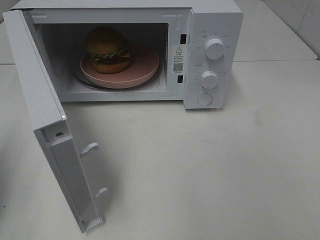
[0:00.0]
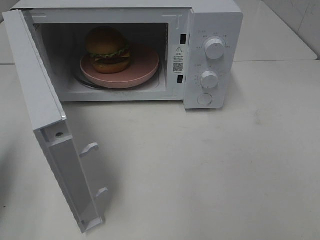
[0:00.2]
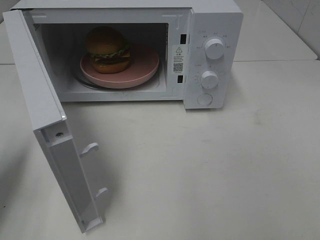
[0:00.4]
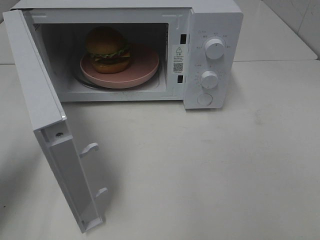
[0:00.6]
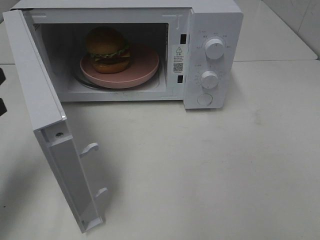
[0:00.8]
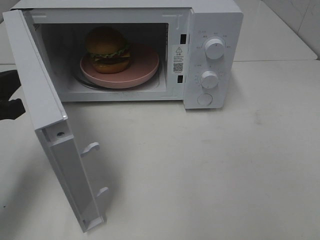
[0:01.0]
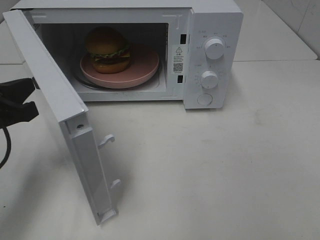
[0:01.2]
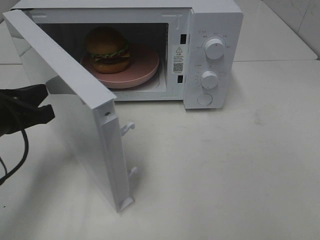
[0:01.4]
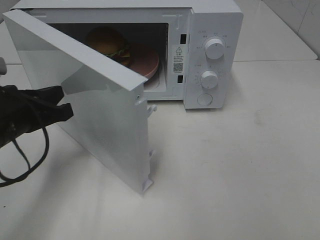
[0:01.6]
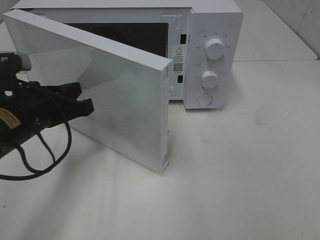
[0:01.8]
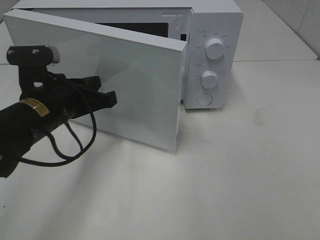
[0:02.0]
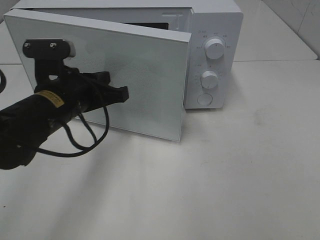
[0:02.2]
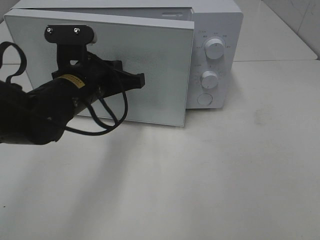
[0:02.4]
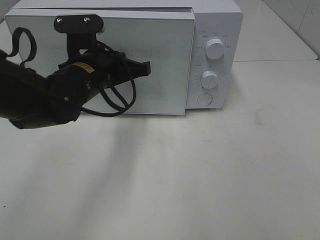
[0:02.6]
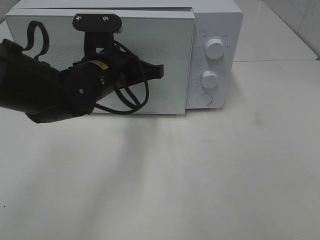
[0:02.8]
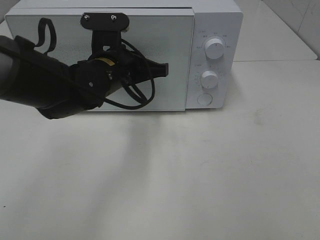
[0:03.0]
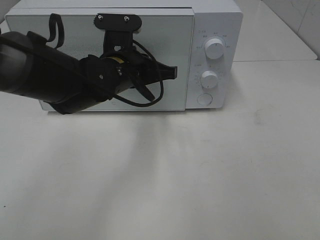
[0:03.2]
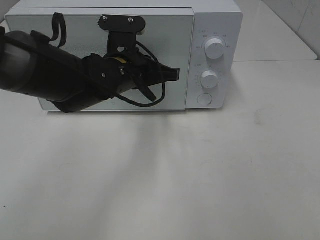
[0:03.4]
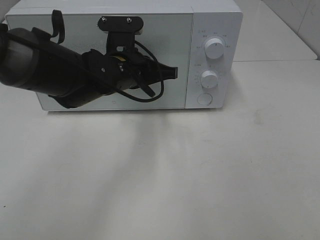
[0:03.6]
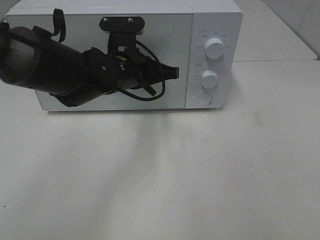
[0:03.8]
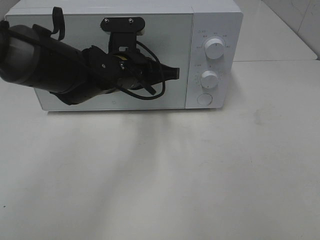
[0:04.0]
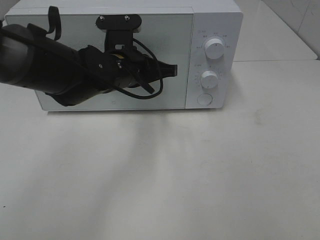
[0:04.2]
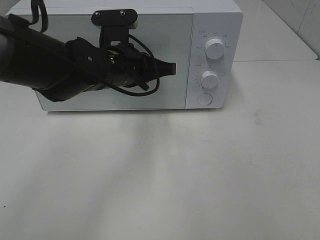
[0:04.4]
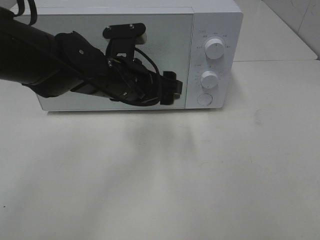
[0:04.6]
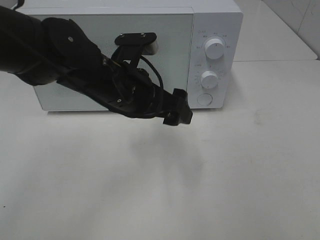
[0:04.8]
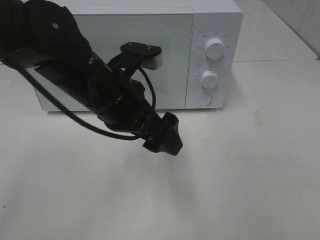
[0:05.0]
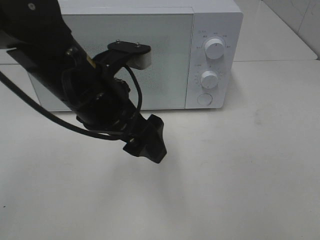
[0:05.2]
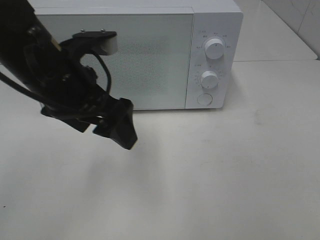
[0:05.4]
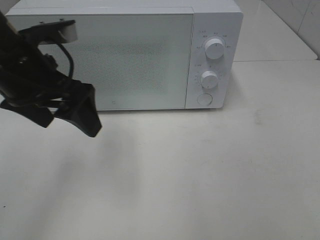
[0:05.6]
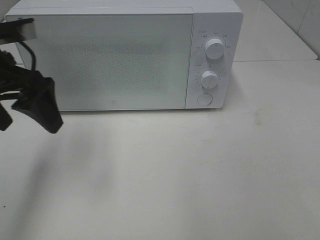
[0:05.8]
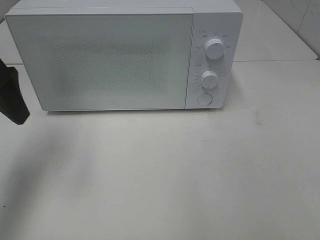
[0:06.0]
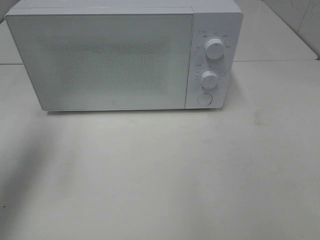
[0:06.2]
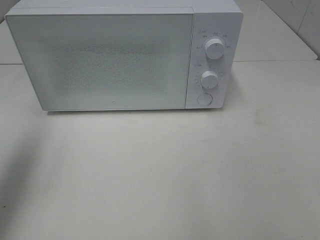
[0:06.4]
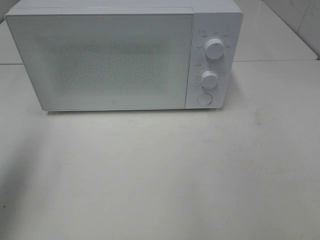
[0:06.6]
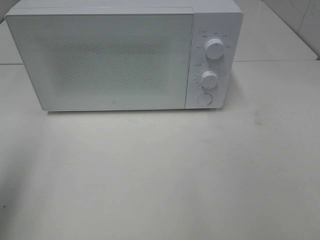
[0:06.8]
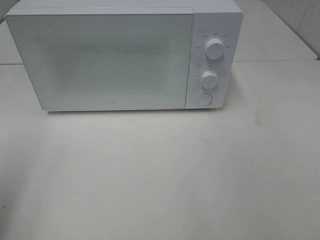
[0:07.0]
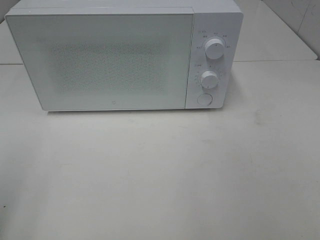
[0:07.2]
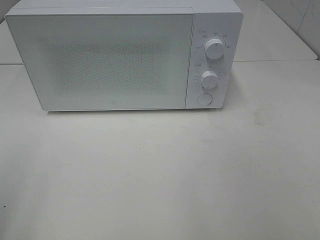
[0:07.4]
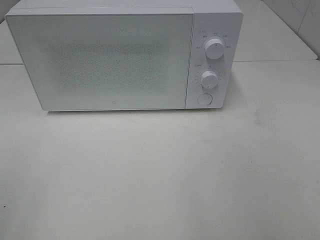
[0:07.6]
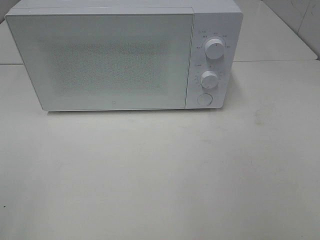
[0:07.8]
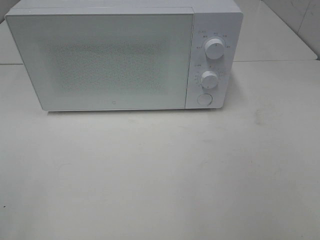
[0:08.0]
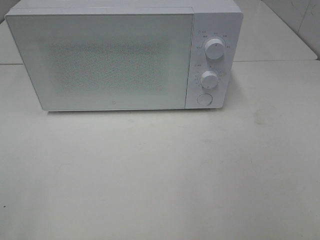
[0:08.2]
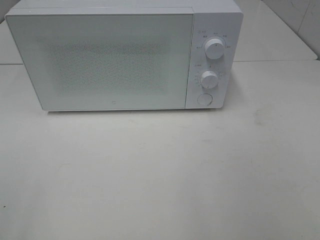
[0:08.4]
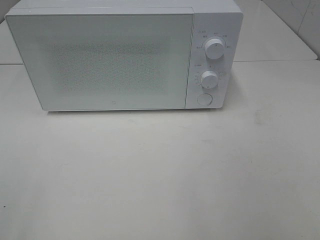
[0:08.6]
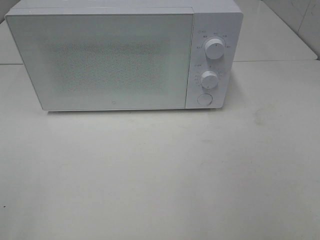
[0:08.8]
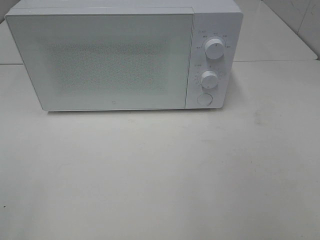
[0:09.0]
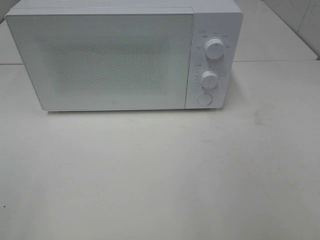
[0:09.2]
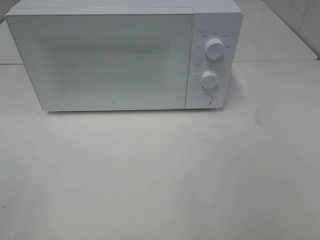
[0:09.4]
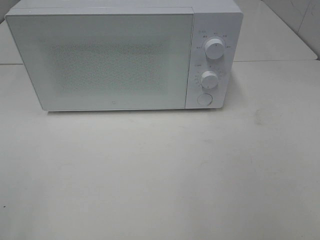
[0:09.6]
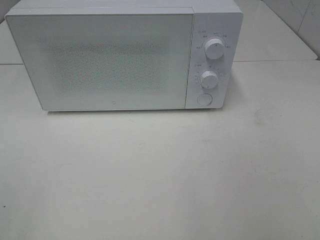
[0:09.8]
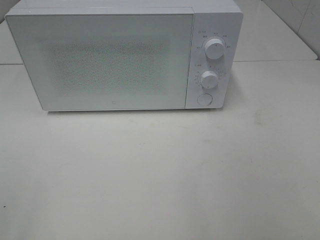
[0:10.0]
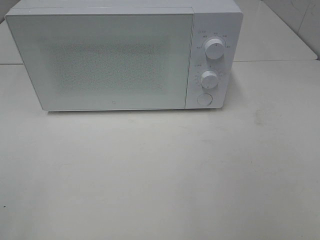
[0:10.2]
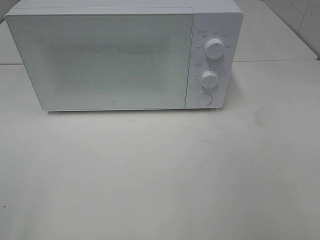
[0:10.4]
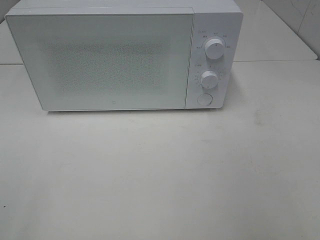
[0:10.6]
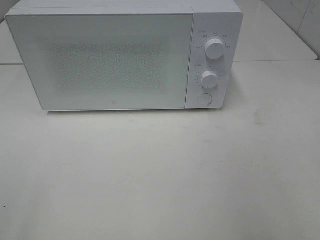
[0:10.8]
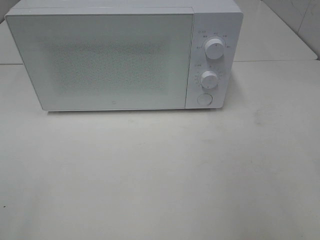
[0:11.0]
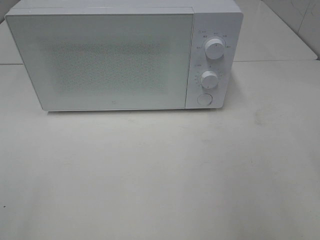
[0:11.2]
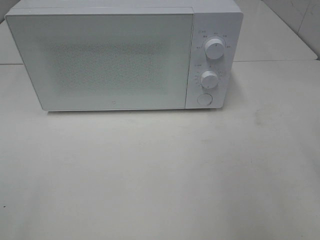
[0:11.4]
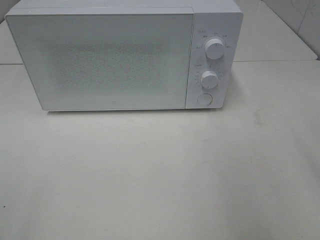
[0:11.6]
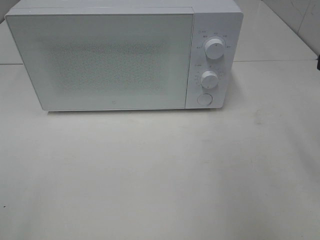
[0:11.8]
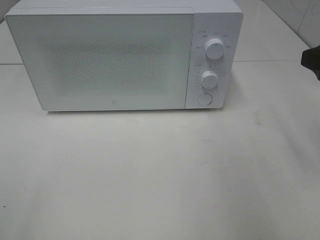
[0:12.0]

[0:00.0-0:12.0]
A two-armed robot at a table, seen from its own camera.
Task of the whole recording: Heat the burger.
Step, 0:00.0 to 0:04.6: Left hand: close the microwave door.
0:00.0 to 0:01.6: The left gripper is displaced to the right, downward and forward by approximately 15 cm.
0:01.6 to 0:03.0: The left gripper heads to the right and forward, covering approximately 15 cm.
0:03.0 to 0:04.4: There are only small adjustments of the grippers.
0:04.4 to 0:06.0: The left gripper heads to the left and upward, covering approximately 25 cm, and opens.
0:06.0 to 0:07.6: The left gripper travels backward by roughly 25 cm.
0:10.4 to 0:12.0: The right gripper goes some 20 cm forward.

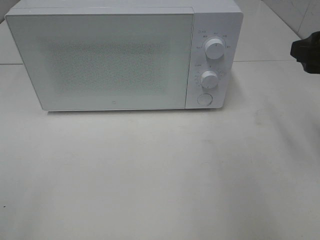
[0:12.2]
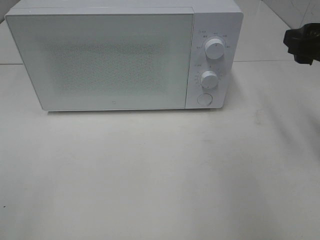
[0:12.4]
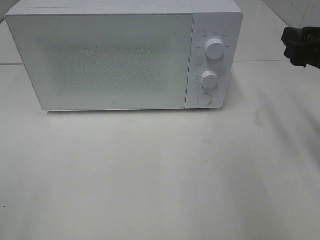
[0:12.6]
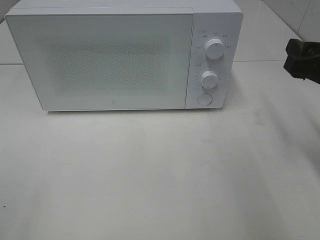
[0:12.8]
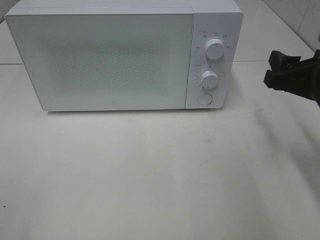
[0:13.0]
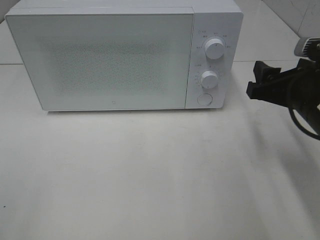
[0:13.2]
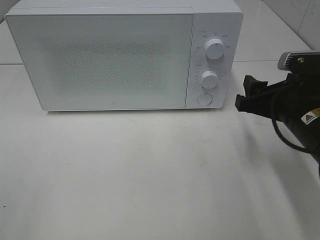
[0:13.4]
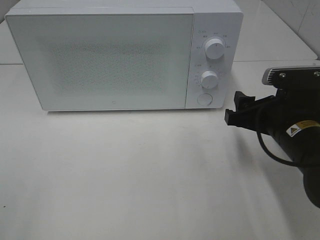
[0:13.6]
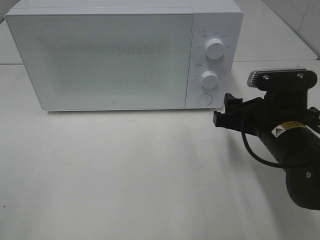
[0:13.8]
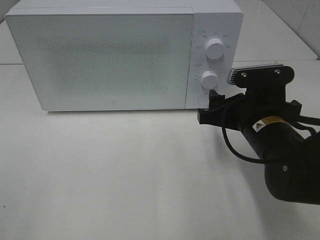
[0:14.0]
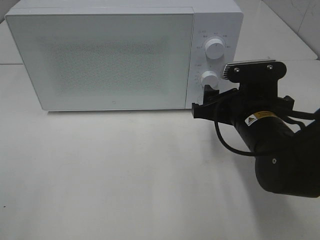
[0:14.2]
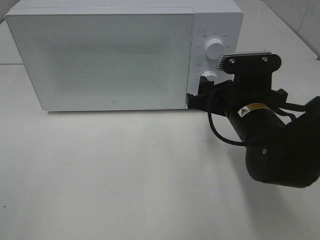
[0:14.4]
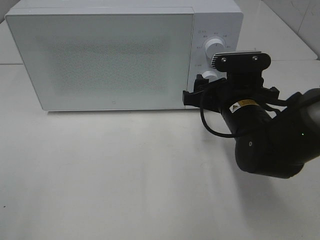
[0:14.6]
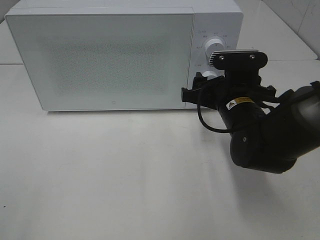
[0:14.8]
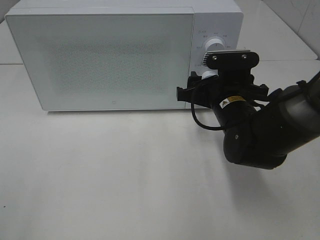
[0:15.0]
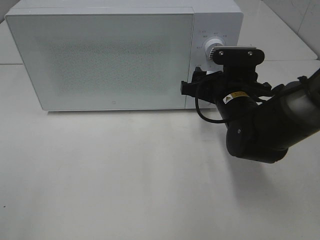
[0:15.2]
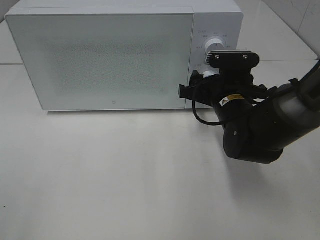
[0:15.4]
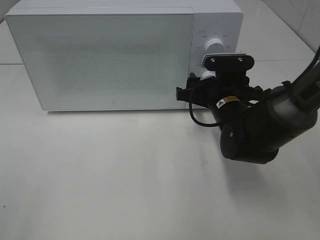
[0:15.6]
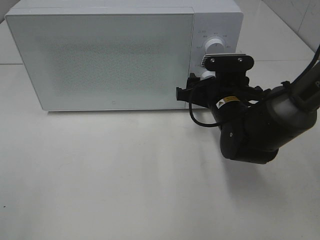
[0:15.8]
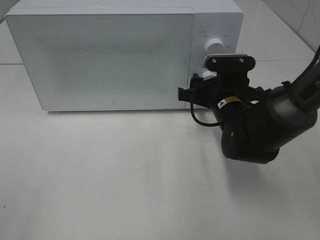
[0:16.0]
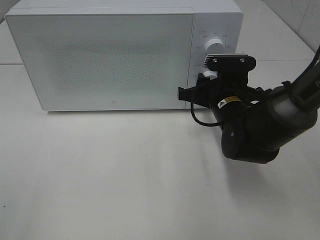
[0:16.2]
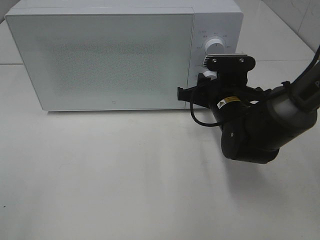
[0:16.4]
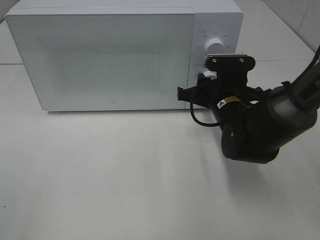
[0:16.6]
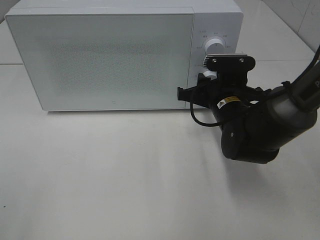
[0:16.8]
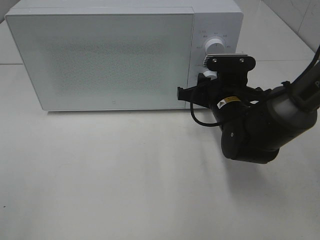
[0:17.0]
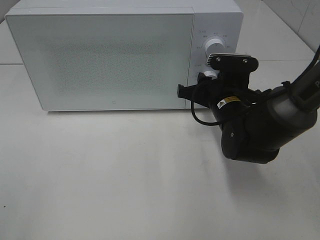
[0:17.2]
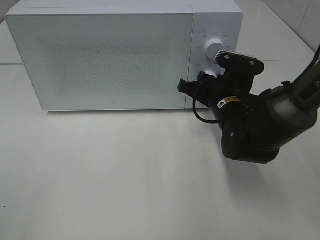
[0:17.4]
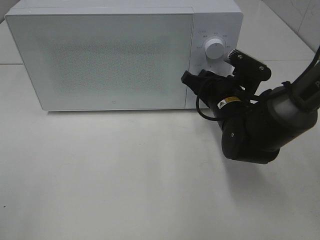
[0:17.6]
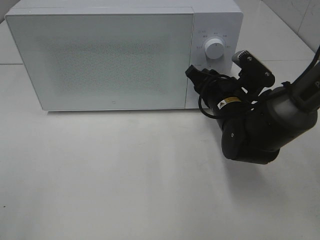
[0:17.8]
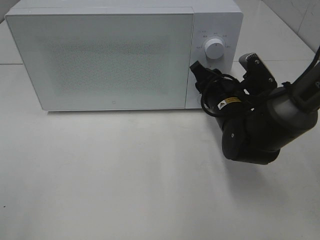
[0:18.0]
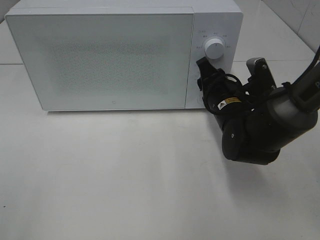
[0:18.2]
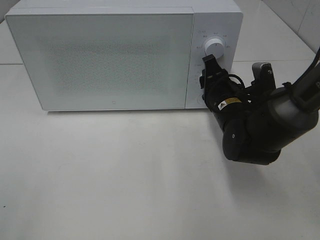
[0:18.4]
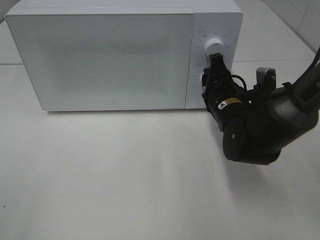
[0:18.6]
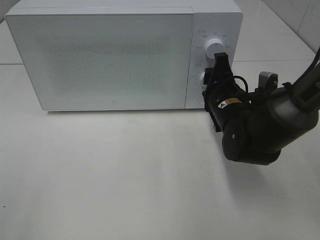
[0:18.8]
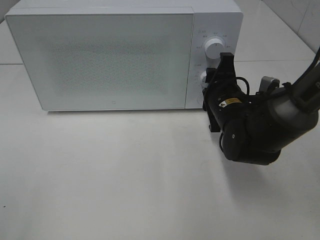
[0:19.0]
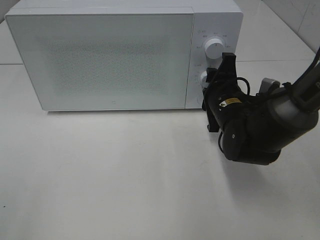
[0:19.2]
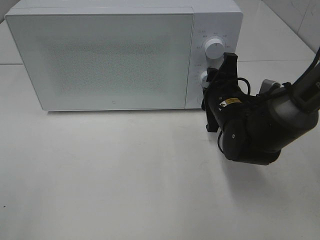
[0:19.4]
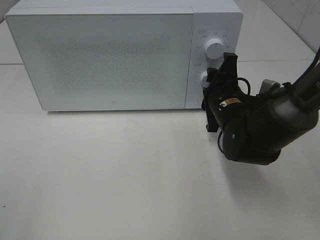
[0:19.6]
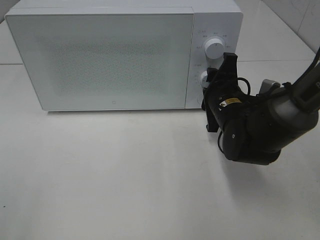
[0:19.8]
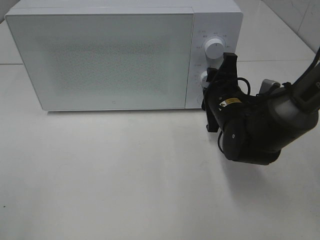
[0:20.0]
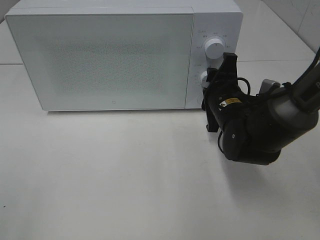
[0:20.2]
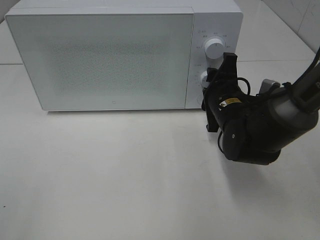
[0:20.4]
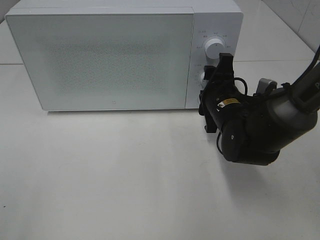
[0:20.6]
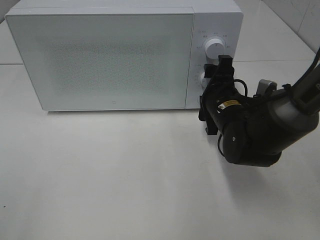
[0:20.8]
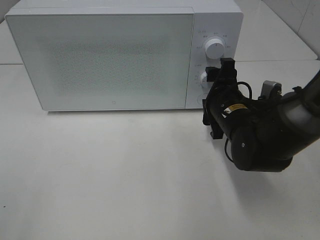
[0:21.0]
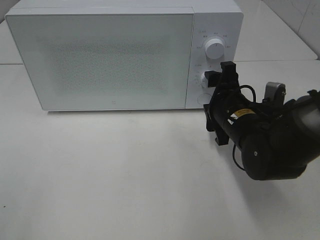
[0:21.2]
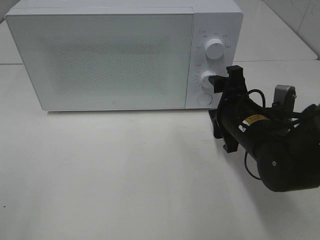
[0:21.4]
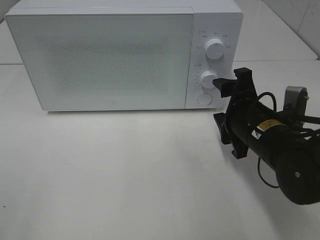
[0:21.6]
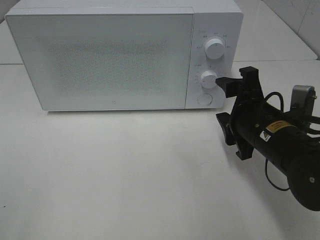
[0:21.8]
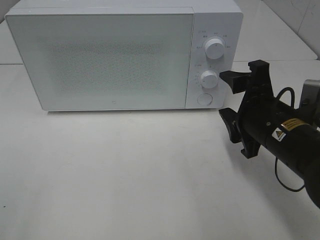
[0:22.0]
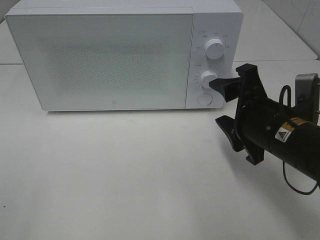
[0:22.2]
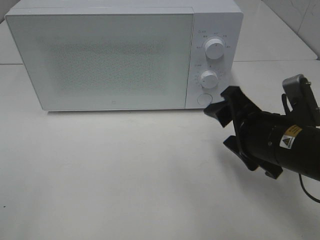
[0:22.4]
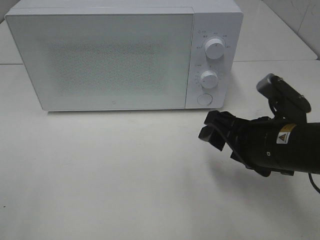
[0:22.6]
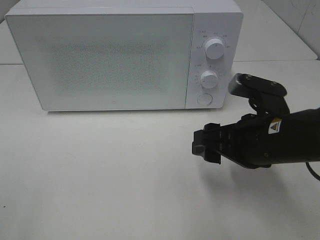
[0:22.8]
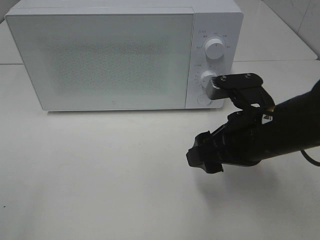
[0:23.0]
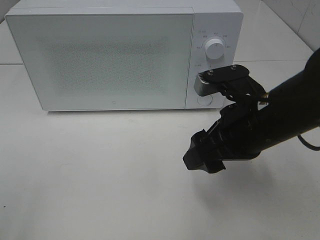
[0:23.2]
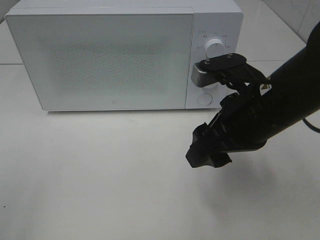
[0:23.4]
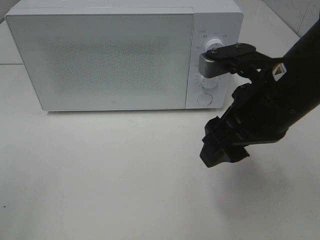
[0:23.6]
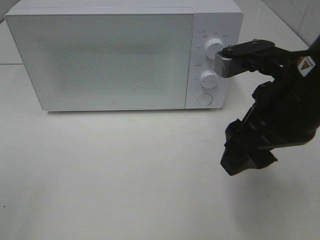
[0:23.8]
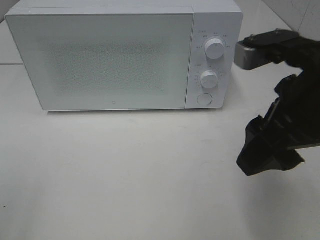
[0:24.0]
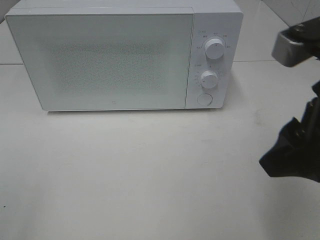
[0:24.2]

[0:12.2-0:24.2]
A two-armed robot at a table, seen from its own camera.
Task of the whole recording: Heat the burger.
Step, 0:12.2 to 0:20.8: Right hand: twist timer button.
0:12.2 to 0:13.8: The right gripper travels downward and to the left by some 15 cm.
0:13.8 to 0:15.2: The right gripper shifts about 10 cm forward.
0:15.2 to 0:16.6: The right gripper closes.
0:19.8 to 0:21.2: The right gripper opens its fingers.
0:21.2 to 0:22.6: The right gripper moves backward, about 10 cm.
0:22.6 to 0:24.2: The right gripper goes approximately 15 cm upward and backward.
